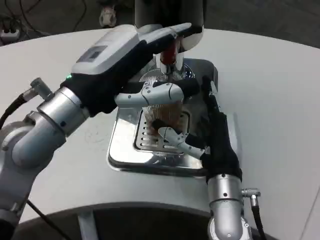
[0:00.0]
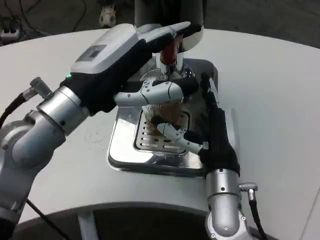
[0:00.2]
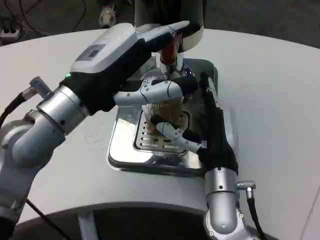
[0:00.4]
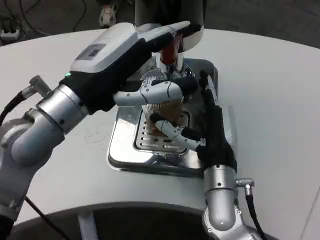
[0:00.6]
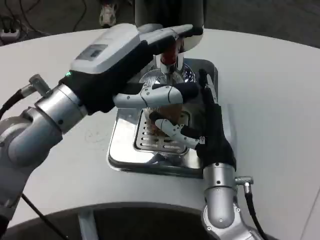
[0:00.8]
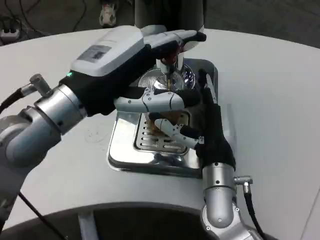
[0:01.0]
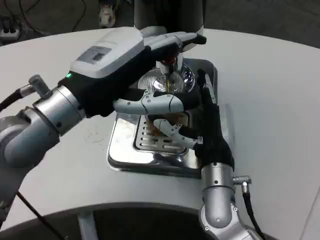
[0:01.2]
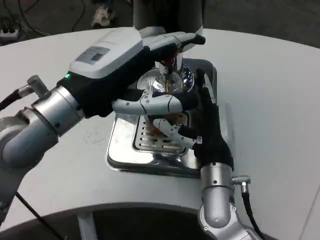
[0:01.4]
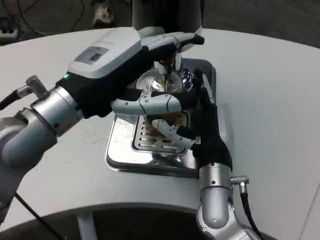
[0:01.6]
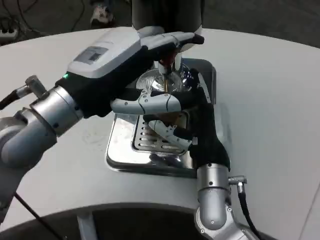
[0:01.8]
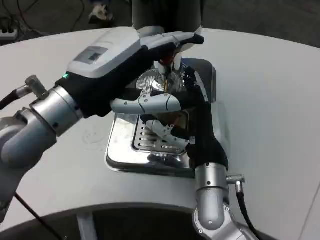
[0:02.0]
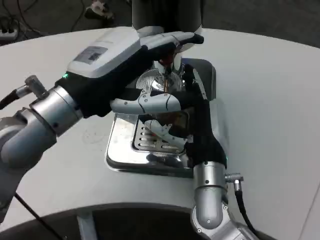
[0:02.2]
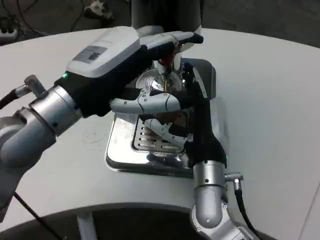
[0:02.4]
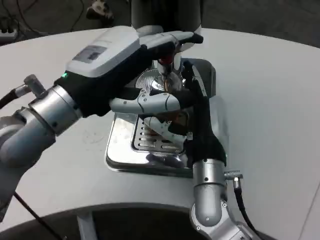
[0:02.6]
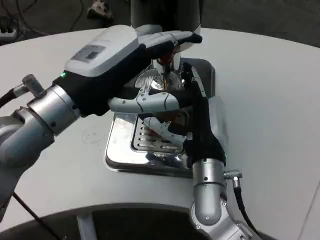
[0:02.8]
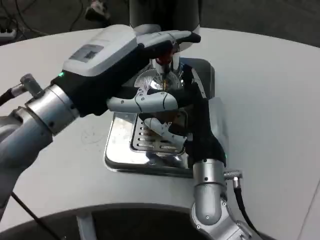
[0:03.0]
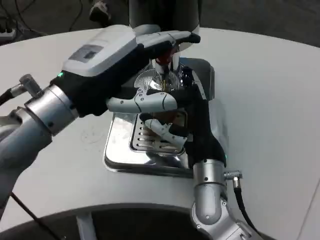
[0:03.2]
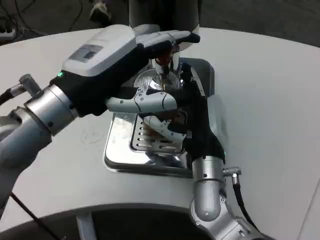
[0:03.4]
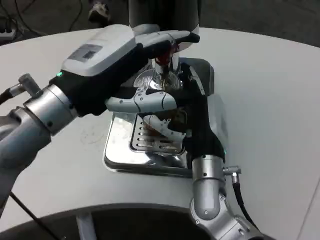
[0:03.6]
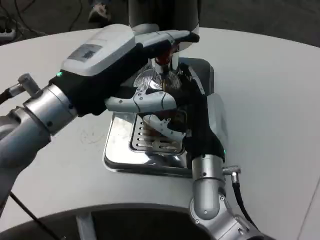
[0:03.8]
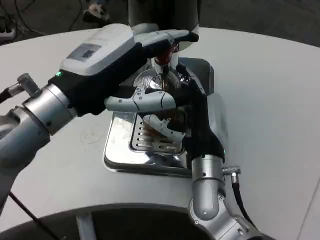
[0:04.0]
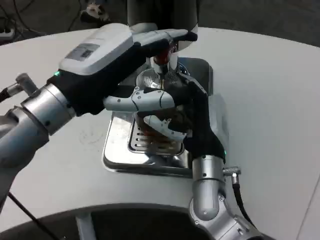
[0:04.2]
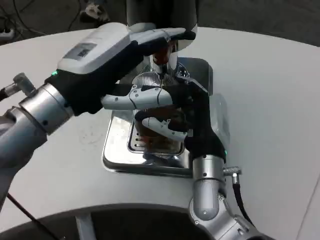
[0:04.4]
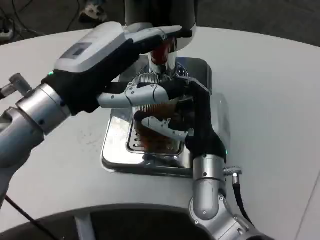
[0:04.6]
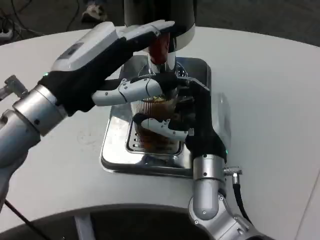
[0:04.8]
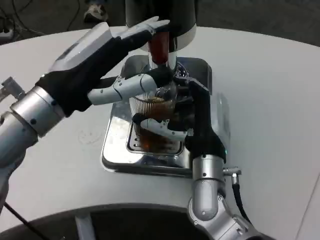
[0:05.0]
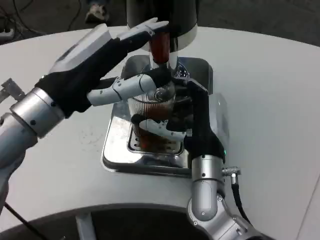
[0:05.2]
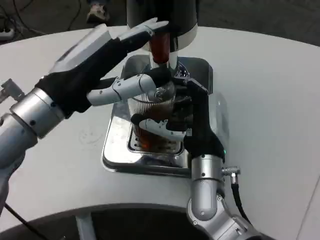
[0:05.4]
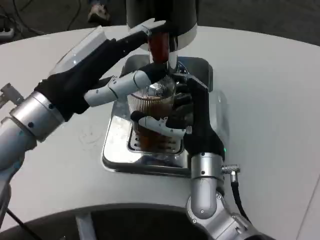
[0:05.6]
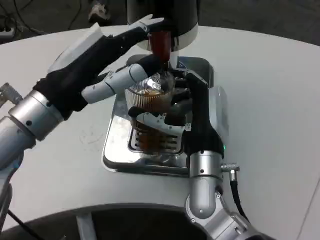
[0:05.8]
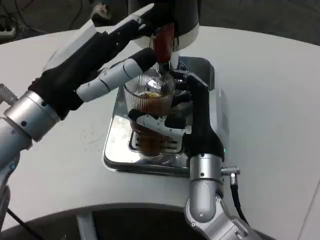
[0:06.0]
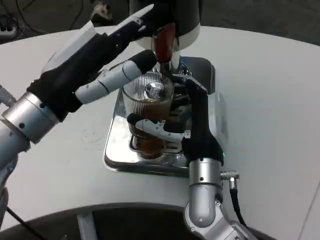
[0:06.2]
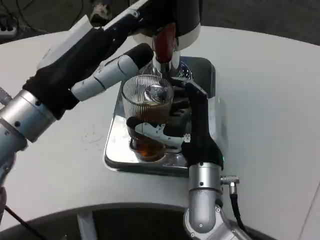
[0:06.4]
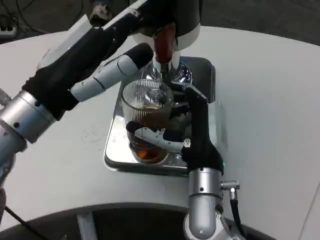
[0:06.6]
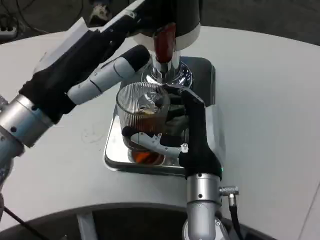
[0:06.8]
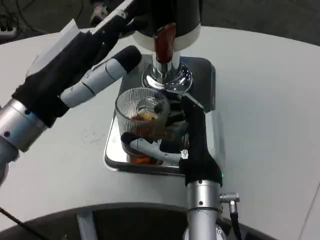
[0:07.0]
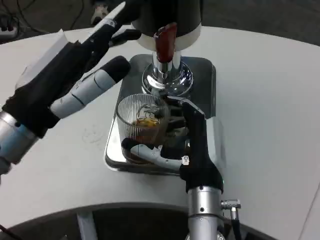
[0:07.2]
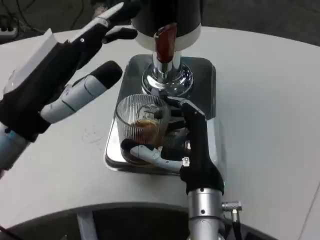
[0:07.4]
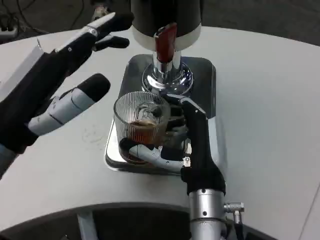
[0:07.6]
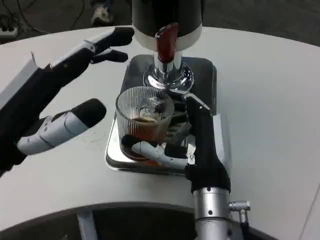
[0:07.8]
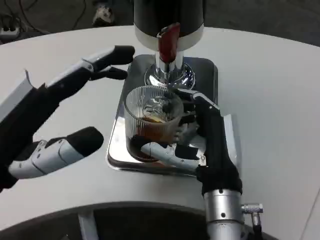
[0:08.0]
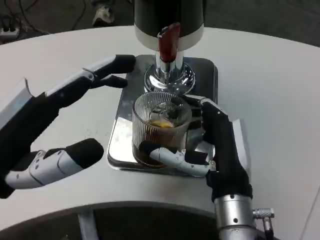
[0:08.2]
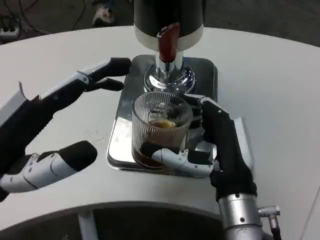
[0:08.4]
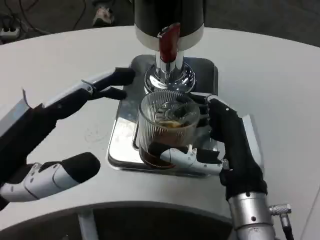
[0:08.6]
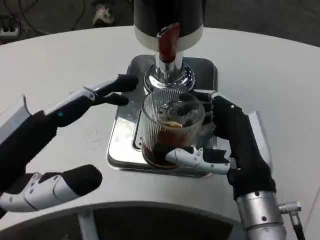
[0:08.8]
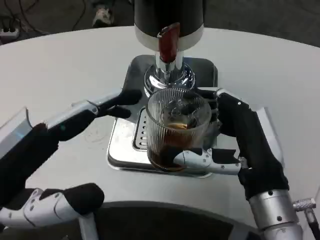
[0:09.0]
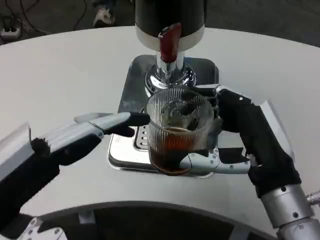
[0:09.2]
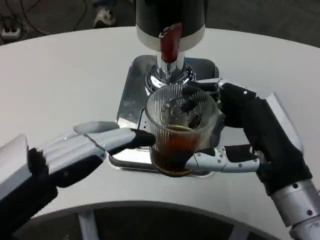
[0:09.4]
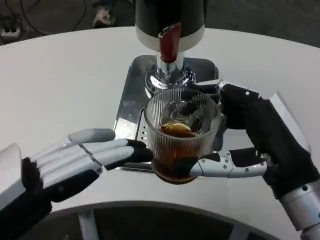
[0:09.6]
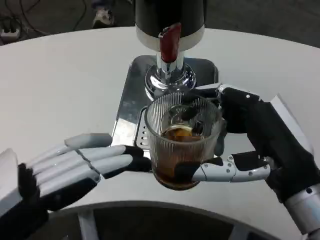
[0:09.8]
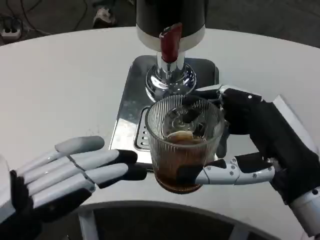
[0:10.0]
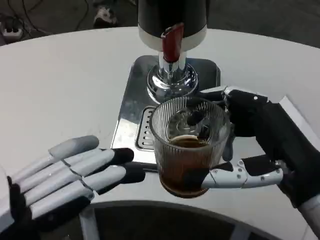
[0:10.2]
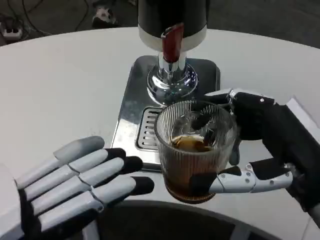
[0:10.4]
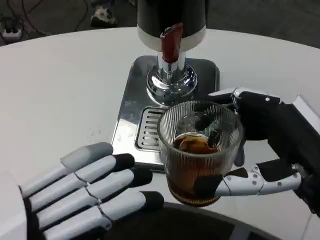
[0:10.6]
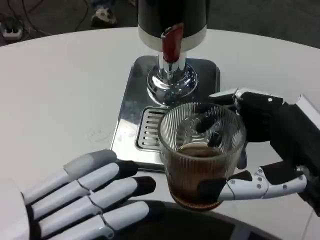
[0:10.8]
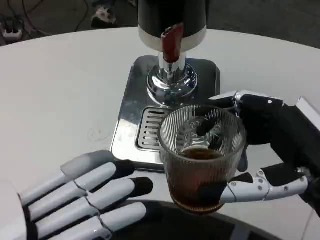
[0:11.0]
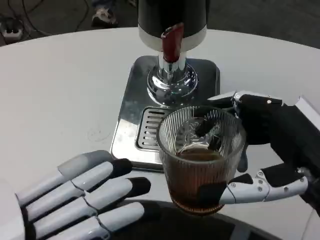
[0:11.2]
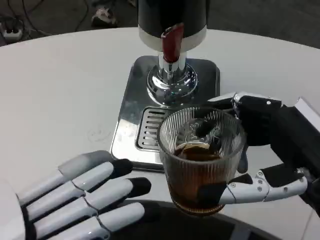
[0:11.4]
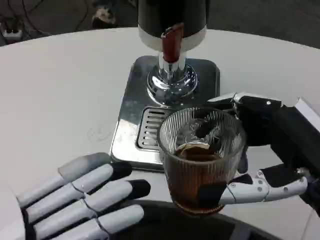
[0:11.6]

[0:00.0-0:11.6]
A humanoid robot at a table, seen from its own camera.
Task of the whole recording: Grasp the cup under the faucet to collect the drink, then remove the cup.
0:05.8 to 0:07.2: The right hand changes place by about 5 cm.
0:07.2 to 0:08.8: The right hand moves to the right, approximately 5 cm. Meanwhile the left hand goes approximately 10 cm backward.
0:08.8 to 0:10.2: The left hand is displaced backward by approximately 10 cm; the right hand heads to the right and upward, covering some 10 cm.

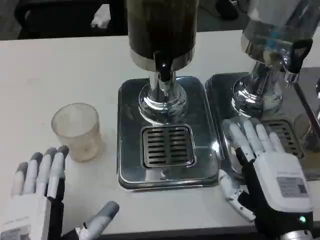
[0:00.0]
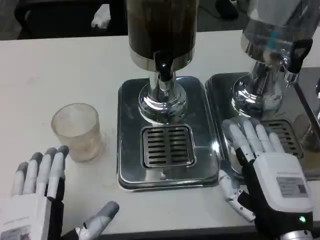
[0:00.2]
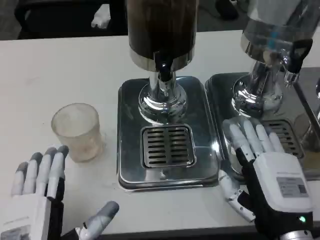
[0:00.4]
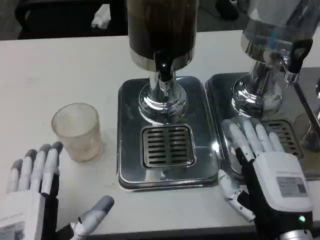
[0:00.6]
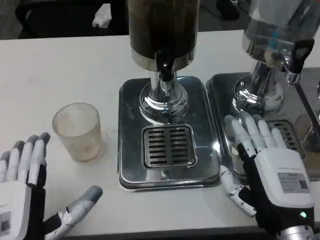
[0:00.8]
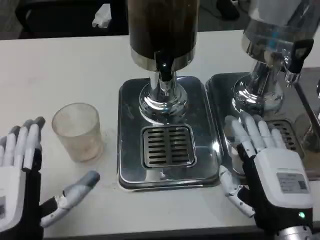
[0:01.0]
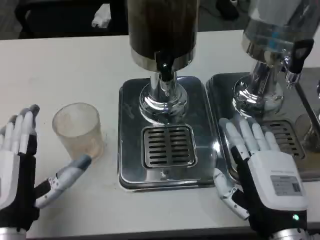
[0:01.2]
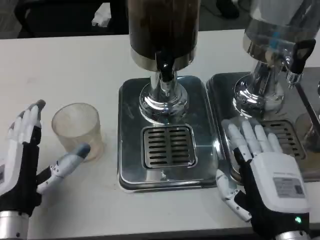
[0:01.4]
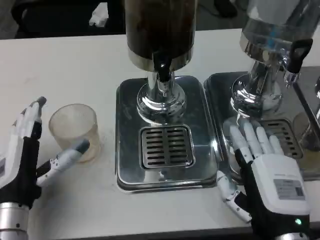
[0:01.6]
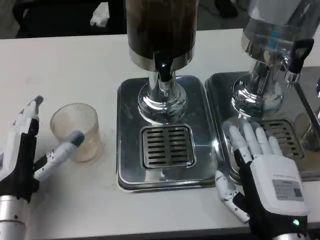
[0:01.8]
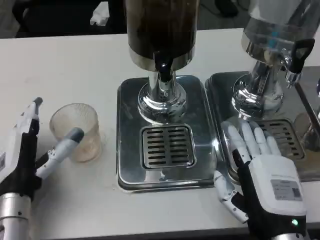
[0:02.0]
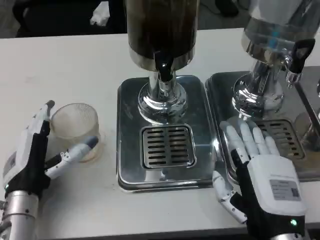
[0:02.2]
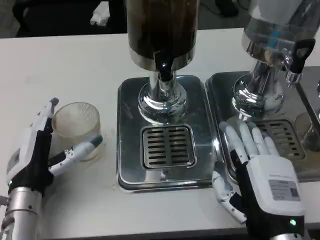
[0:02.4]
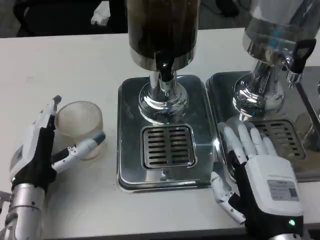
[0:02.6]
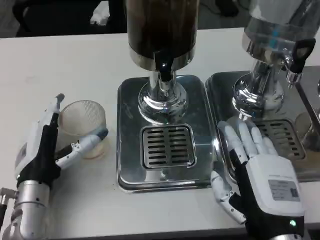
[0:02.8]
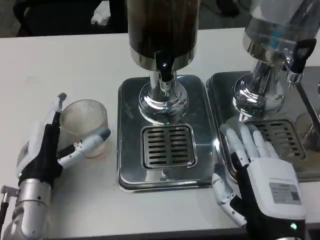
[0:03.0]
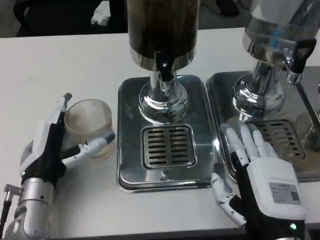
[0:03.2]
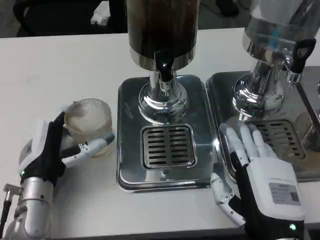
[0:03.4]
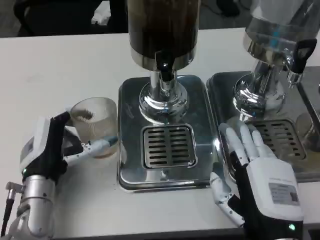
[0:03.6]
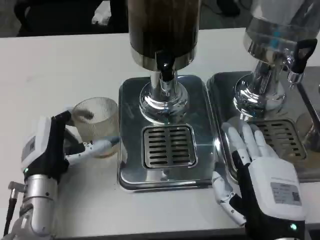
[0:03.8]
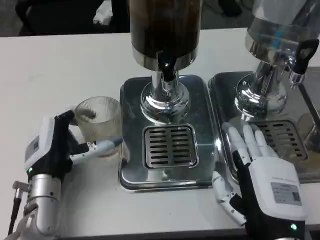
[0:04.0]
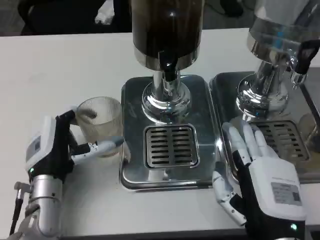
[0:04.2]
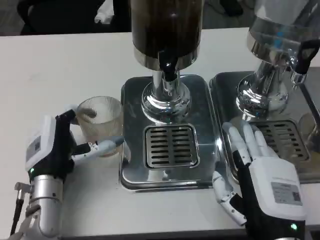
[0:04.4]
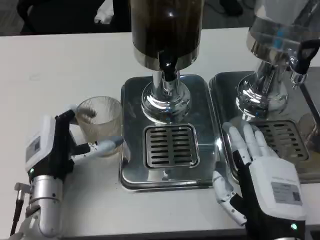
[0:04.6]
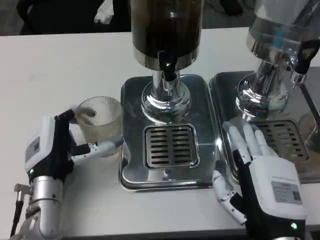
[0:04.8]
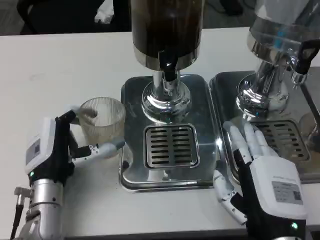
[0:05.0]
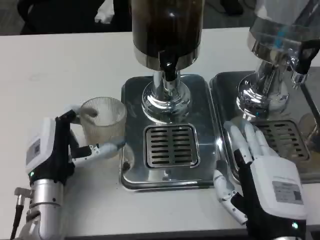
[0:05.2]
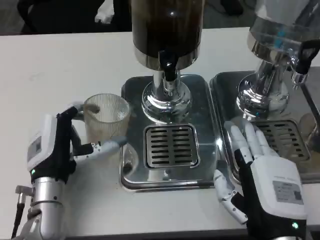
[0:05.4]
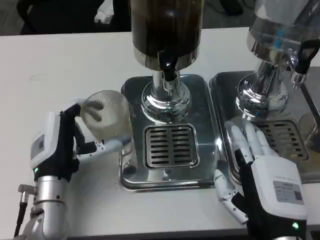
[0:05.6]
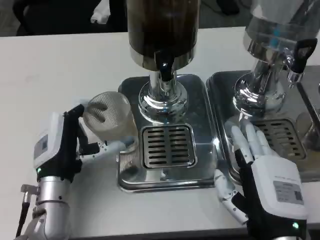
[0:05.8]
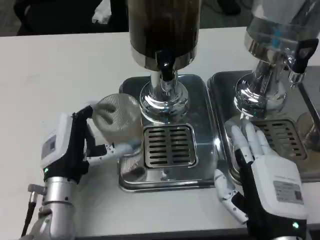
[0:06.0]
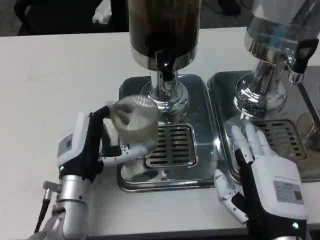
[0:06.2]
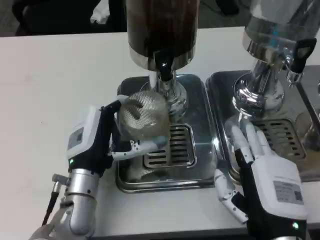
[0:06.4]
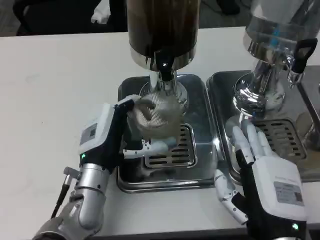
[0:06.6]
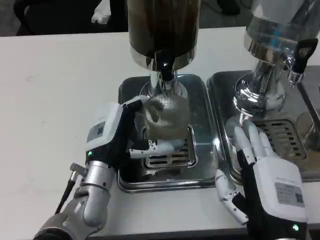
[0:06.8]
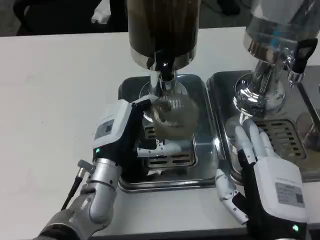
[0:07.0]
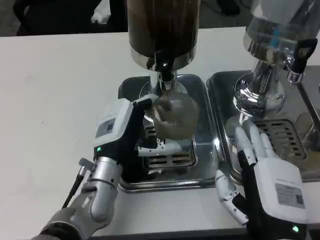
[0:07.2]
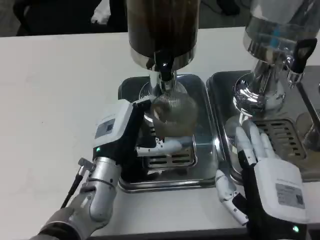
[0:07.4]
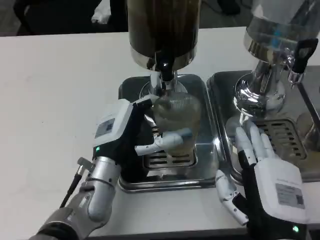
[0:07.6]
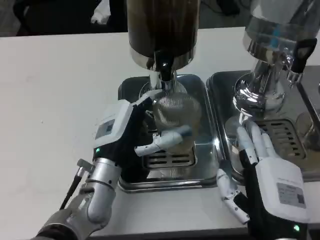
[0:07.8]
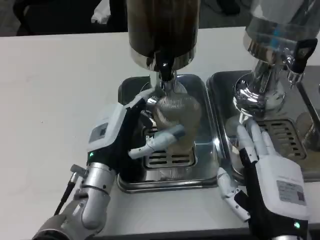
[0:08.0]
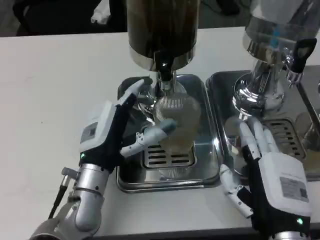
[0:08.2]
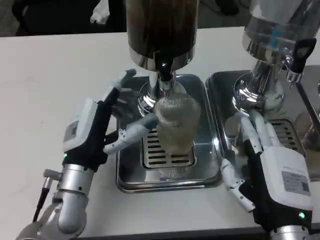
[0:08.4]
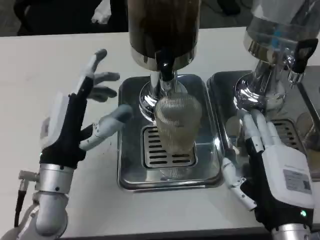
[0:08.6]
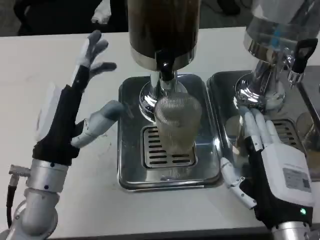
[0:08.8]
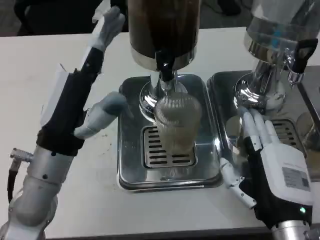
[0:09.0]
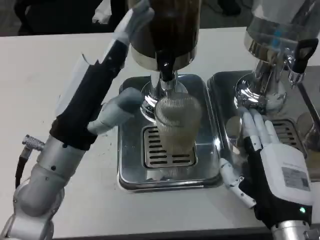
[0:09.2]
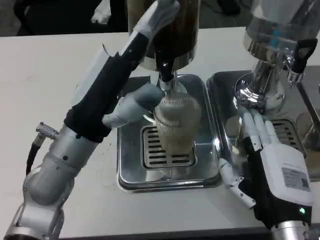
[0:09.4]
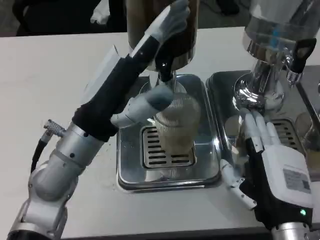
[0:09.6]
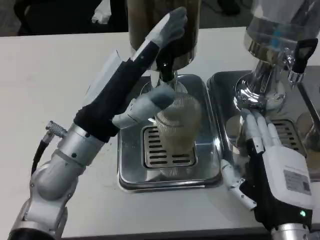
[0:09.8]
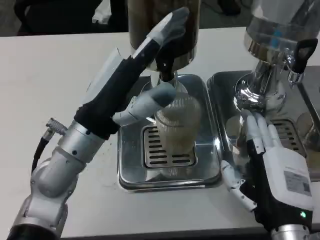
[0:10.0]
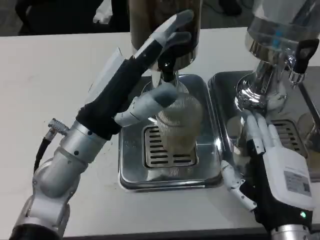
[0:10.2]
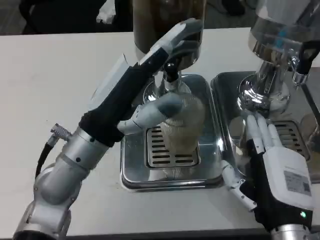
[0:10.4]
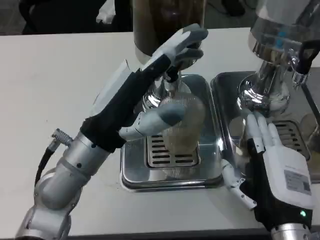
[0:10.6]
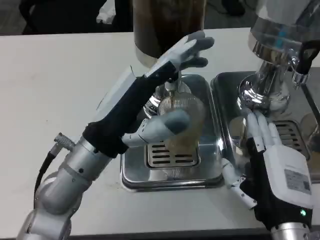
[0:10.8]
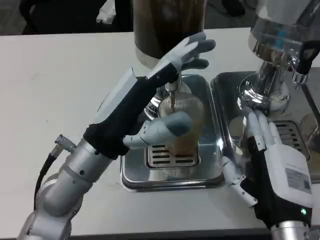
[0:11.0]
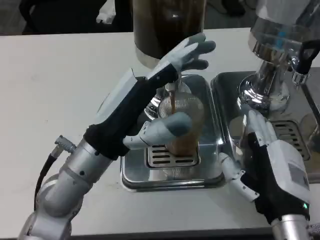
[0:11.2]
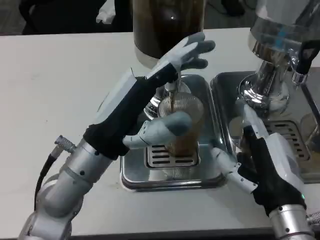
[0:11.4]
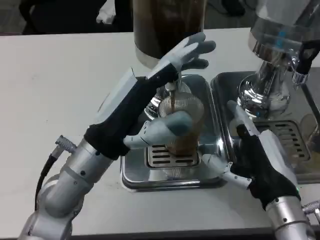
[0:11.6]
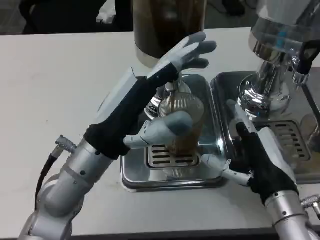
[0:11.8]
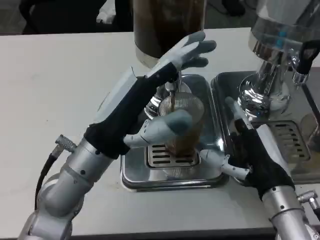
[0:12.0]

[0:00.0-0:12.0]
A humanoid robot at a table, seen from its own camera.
Task of the whole recording: Grasp the cup under the faucet to collect the drink, then remove the cup.
0:00.0 to 0:01.6: The left hand moves forward and to the left, about 10 cm.
0:06.0 to 0:07.6: The left hand moves to the right, roughly 5 cm.
0:07.6 to 0:09.0: The left hand moves upward and to the left, roughly 10 cm.
0:10.4 to 0:12.0: The right hand heads forward, covering about 5 cm.
